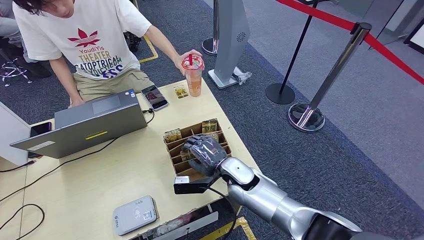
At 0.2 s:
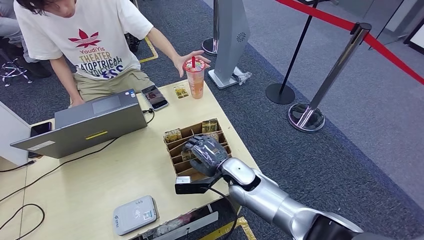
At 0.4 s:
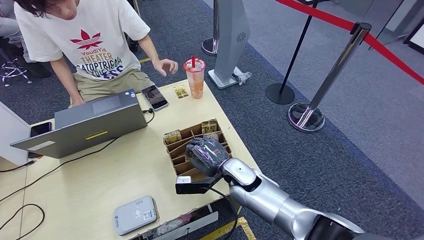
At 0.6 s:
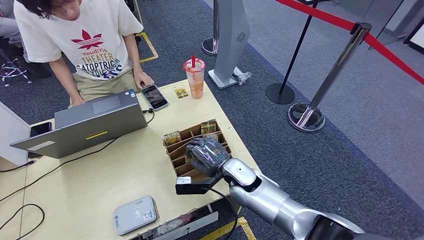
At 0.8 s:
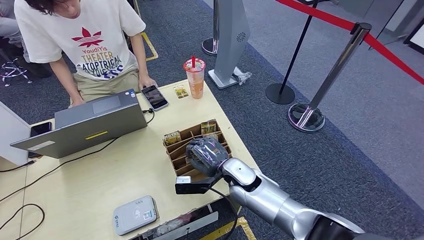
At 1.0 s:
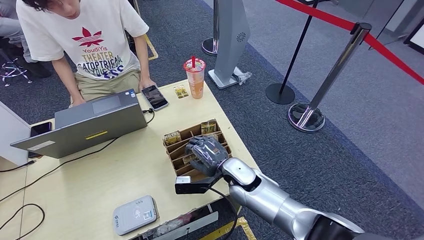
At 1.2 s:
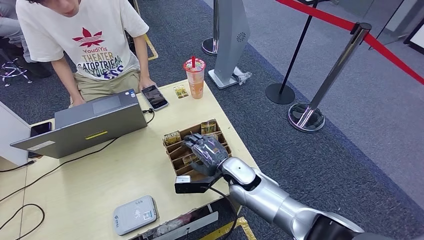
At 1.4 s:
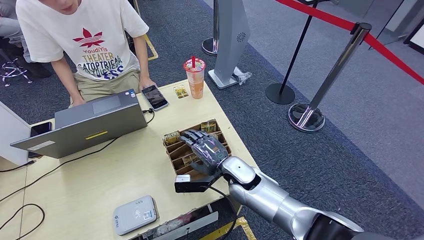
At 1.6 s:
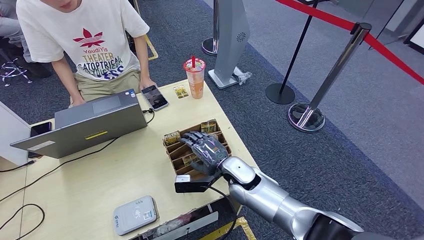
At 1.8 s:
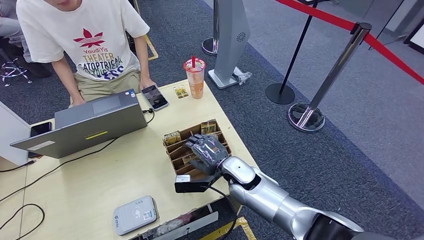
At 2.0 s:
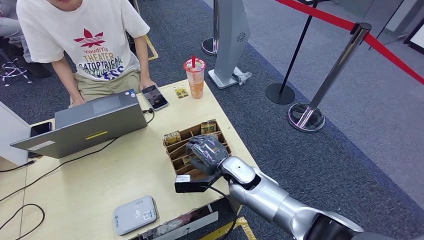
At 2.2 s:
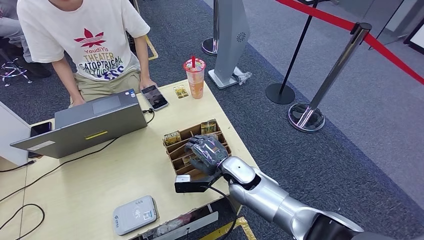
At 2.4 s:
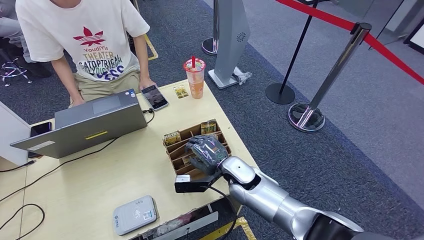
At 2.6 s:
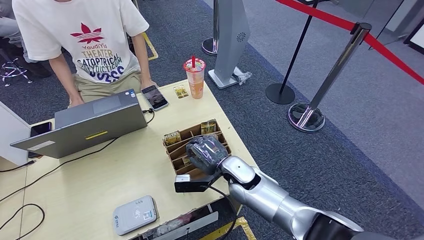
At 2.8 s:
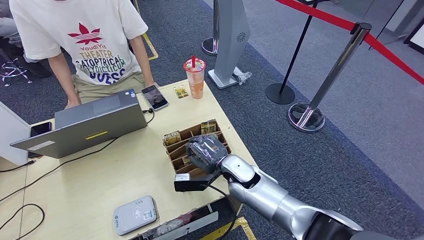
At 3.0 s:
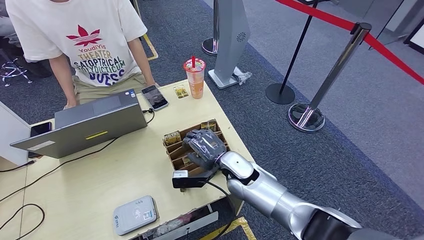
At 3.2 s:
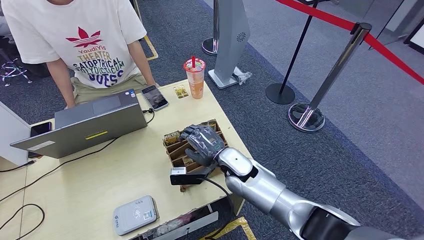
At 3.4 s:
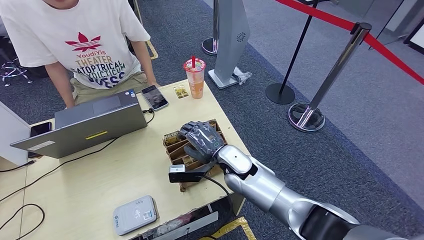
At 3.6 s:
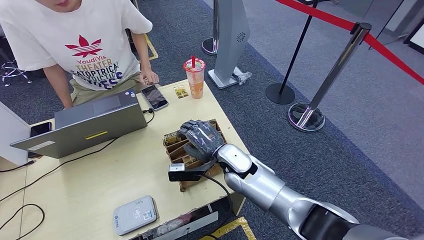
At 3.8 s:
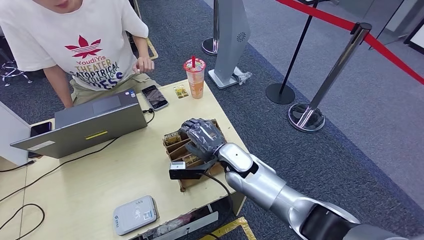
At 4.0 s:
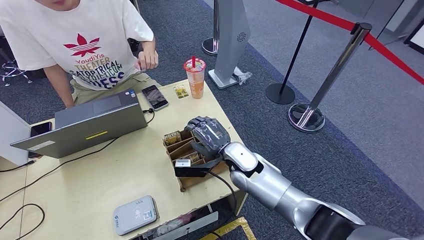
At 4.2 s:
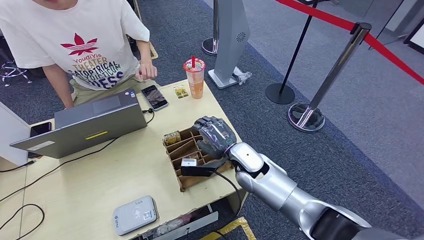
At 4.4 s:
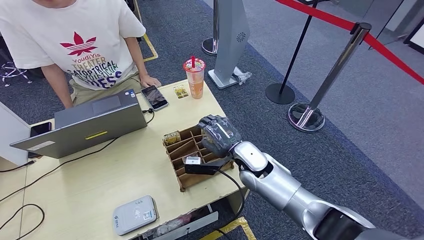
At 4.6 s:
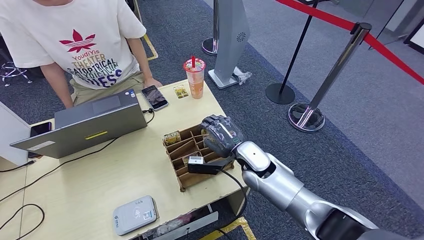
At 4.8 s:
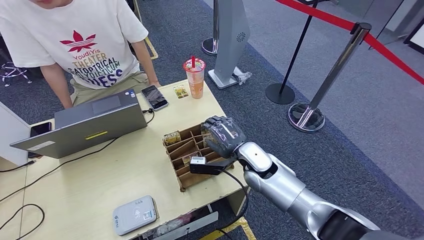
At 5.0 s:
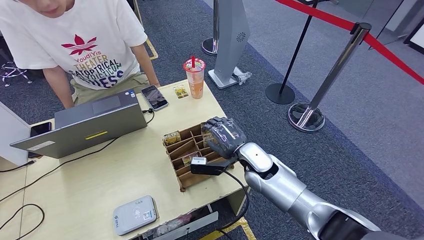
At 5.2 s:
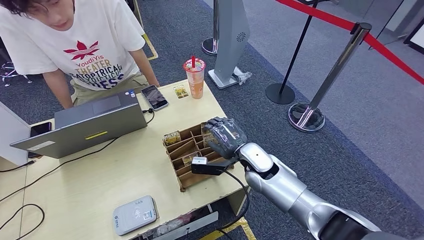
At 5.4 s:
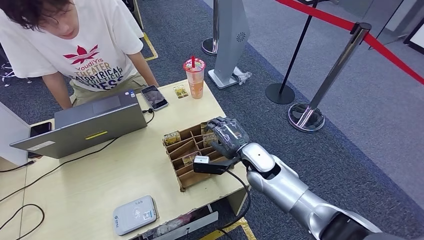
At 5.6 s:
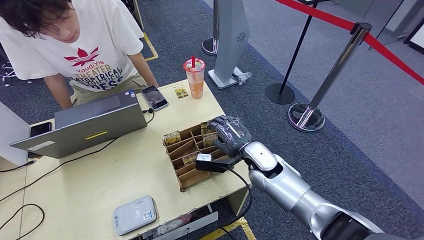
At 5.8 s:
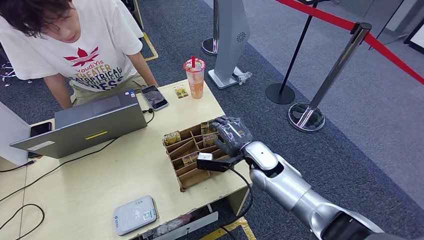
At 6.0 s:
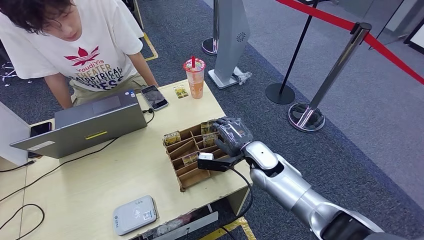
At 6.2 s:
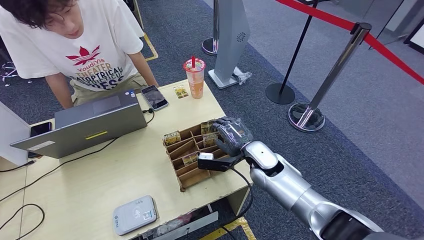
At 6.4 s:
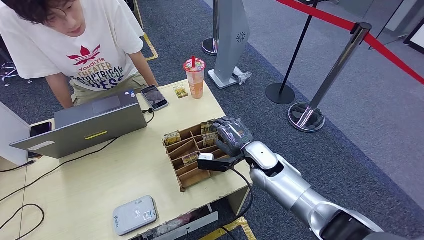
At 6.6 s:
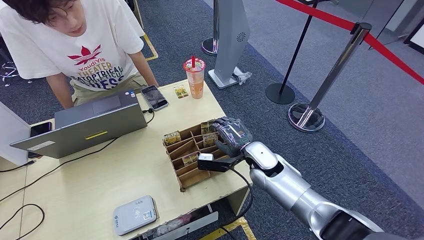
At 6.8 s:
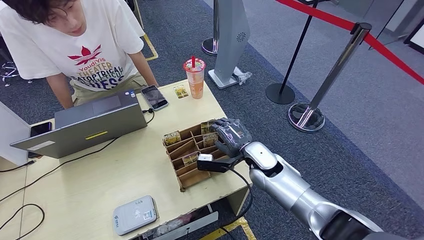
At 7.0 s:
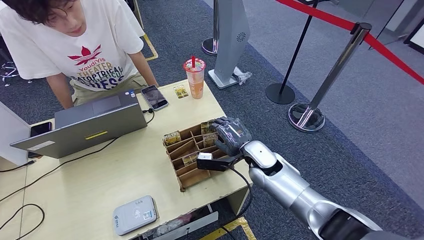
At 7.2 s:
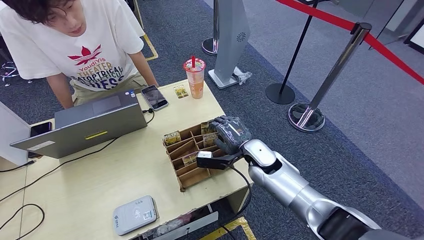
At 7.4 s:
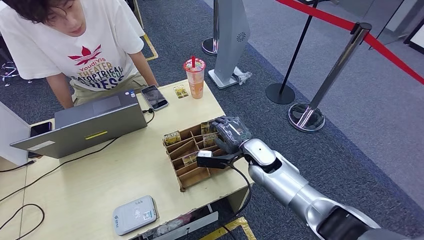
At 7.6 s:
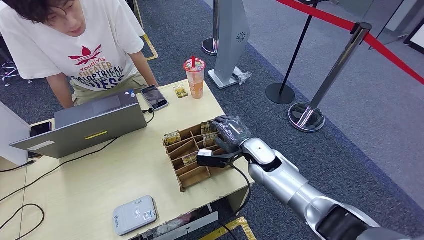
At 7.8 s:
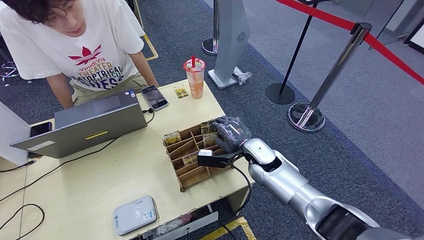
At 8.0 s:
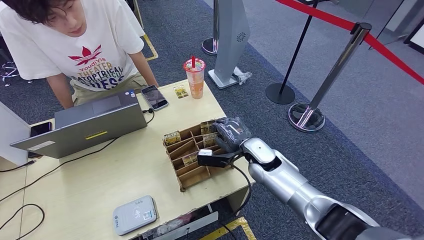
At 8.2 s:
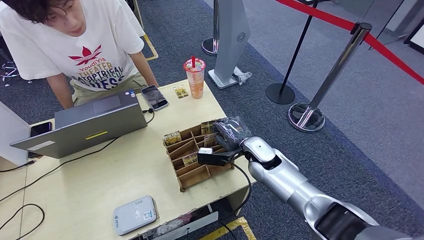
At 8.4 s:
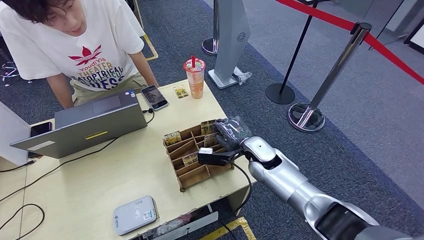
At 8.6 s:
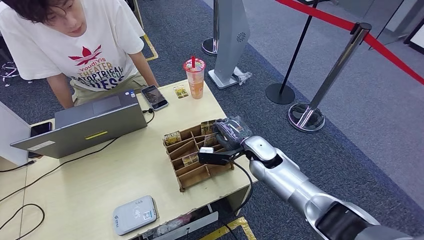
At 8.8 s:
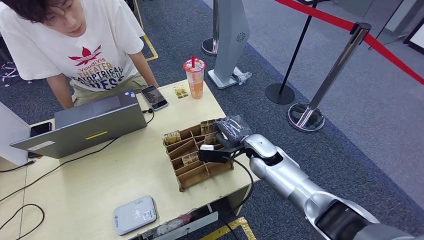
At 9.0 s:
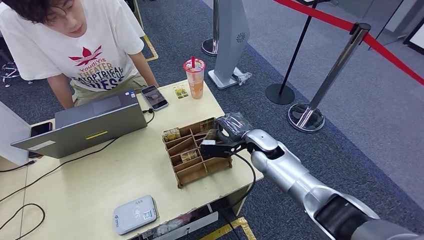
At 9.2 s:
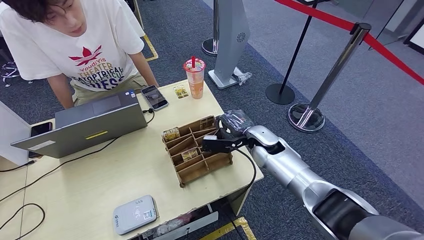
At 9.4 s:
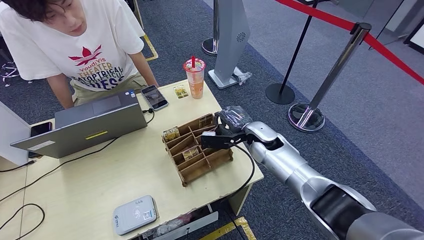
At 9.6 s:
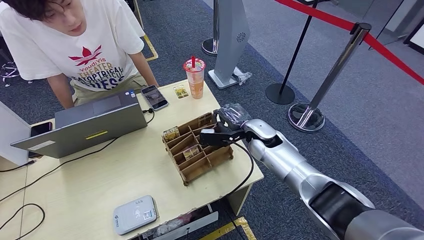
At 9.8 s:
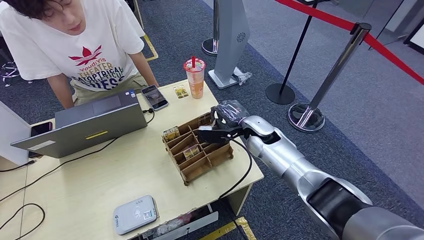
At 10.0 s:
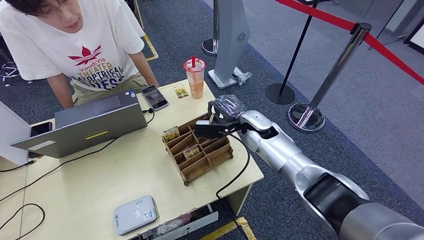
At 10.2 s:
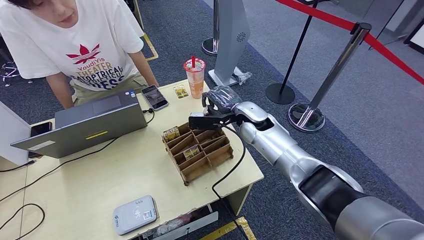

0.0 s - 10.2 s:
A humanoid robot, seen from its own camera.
Step, 0.0 s - 9.6 s: Pick up the room key from the key card box.
0.0 s - 1.4 s: The two hands keep their place.
1.4 s - 4.4 s: The hands move only a little.
4.4 s - 5.8 s: The hands make only small movements.
5.8 s - 7.2 s: Both hands stay about where they are.
7.2 s - 8.8 s: There are only small adjustments of the hands.
8.8 s - 10.2 s: The right hand travels forward and upward by some 10 cm.

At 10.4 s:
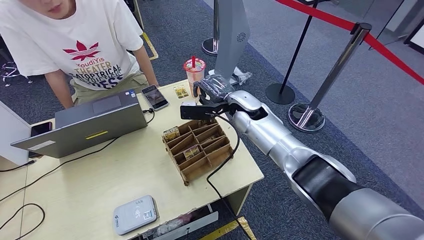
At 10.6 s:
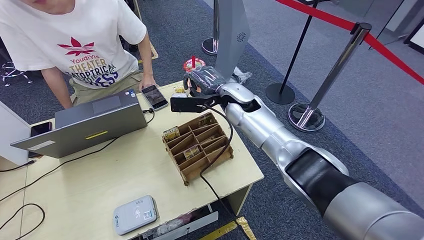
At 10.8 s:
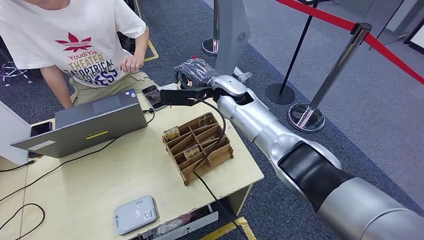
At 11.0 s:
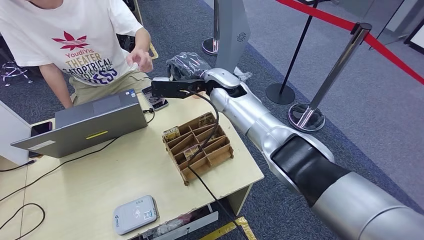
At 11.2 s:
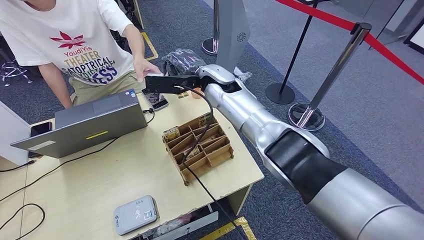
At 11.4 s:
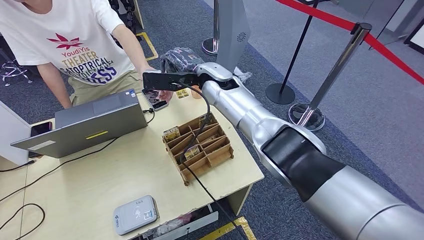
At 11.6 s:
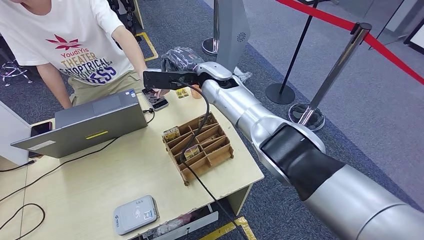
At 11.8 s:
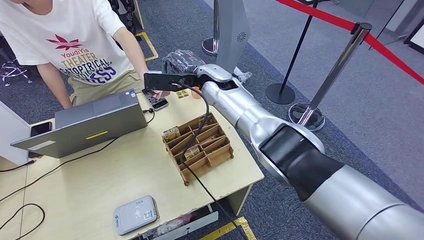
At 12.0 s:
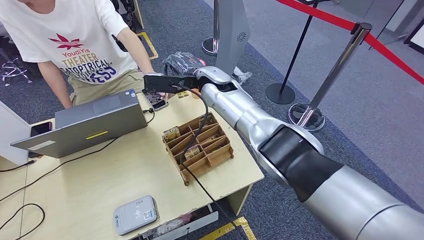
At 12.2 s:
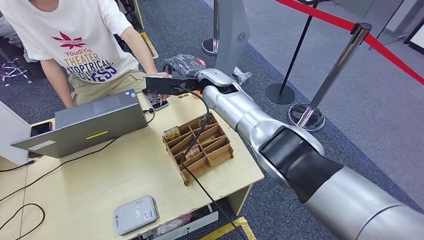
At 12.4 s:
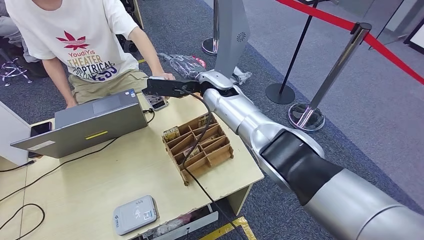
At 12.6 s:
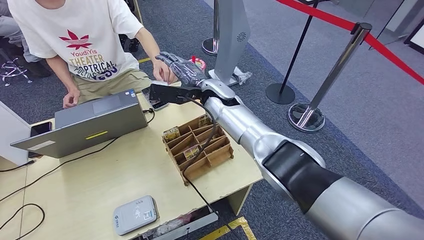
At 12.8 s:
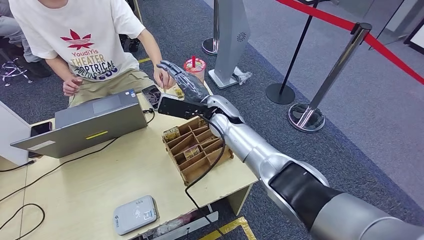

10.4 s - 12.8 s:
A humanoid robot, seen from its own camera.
Step, 10.4 s - 12.8 s: Hand the room key to the person.
